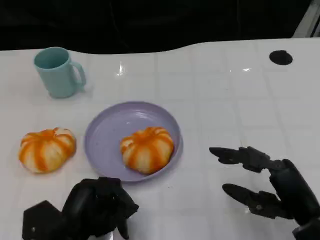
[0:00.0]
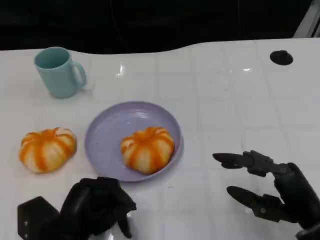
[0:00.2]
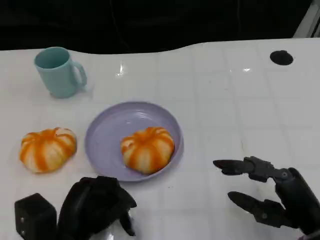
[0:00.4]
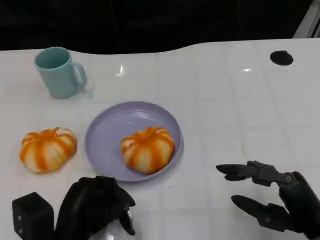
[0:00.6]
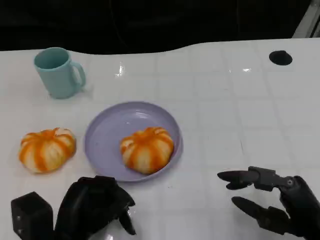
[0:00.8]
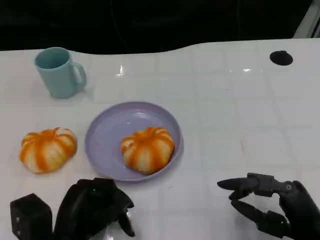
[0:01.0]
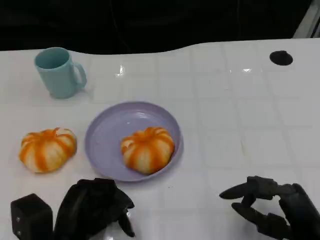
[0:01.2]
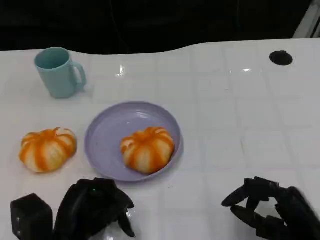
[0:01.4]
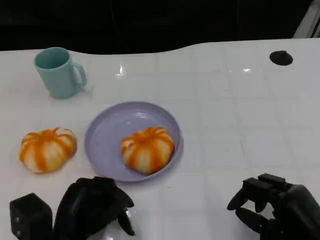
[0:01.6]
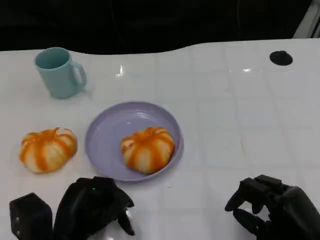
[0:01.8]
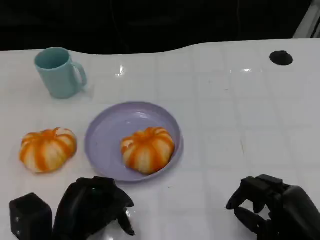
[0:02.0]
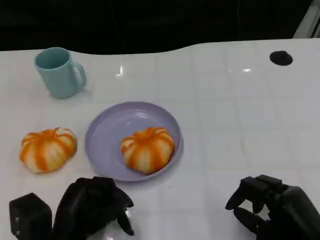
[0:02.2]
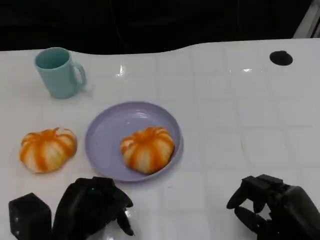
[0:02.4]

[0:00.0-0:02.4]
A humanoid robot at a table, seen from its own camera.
Task of the whole recording: Grasp the bread from the table and place it into the plate.
0:00.0 to 0:01.2: There are only small adjustments of the hands.

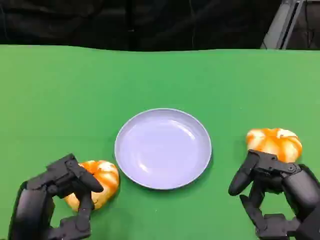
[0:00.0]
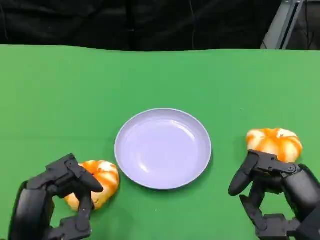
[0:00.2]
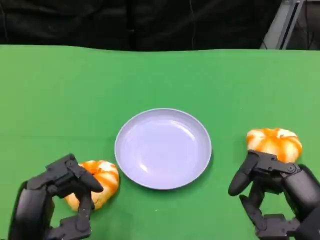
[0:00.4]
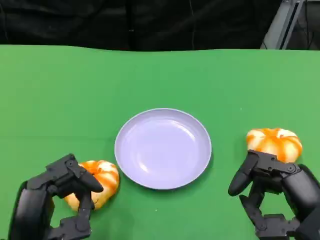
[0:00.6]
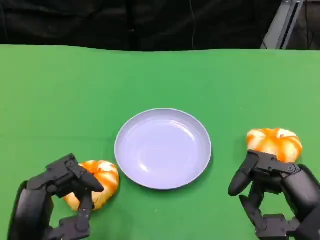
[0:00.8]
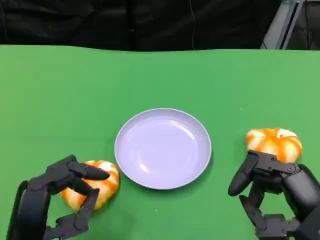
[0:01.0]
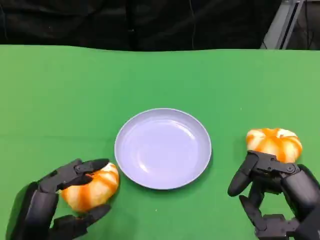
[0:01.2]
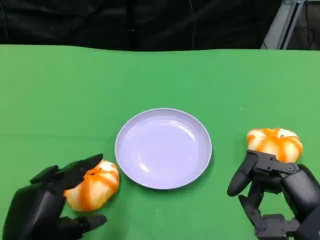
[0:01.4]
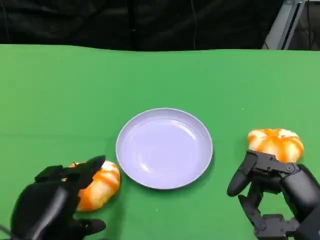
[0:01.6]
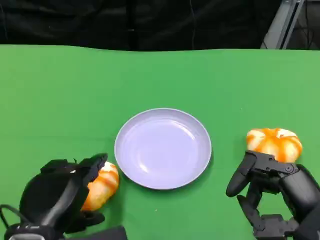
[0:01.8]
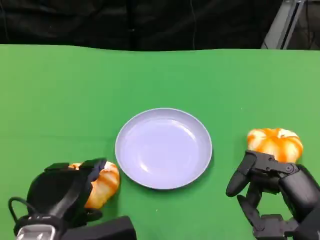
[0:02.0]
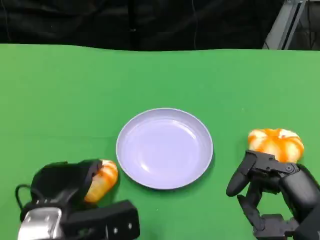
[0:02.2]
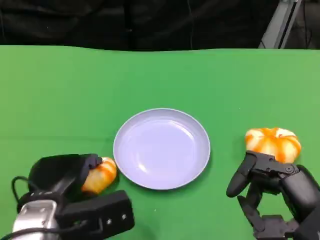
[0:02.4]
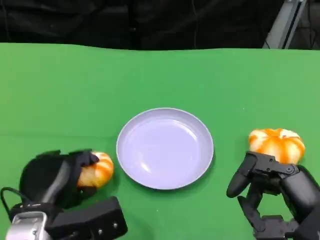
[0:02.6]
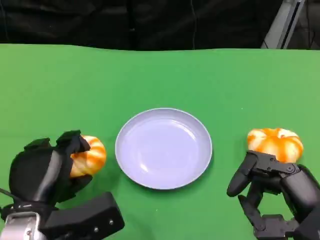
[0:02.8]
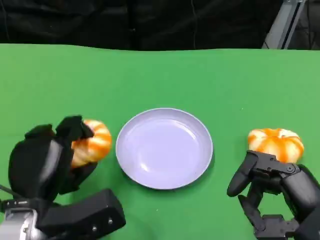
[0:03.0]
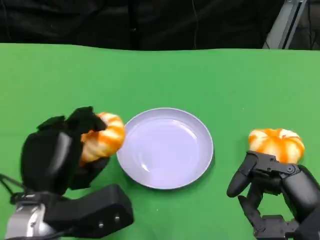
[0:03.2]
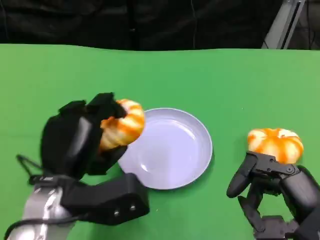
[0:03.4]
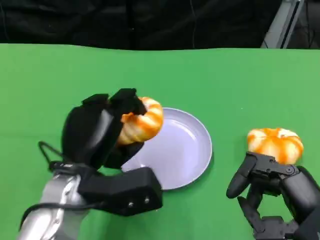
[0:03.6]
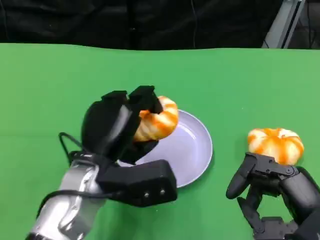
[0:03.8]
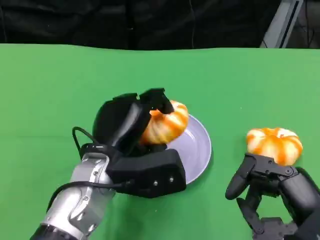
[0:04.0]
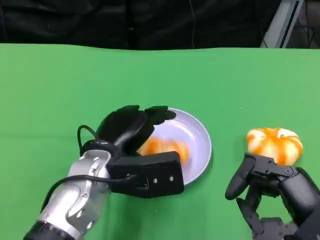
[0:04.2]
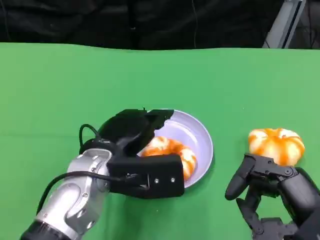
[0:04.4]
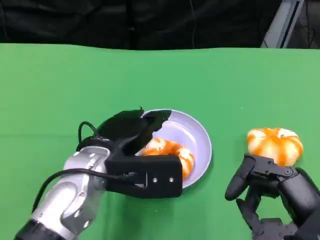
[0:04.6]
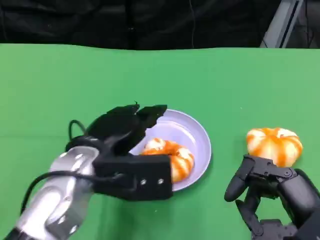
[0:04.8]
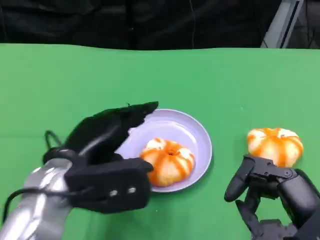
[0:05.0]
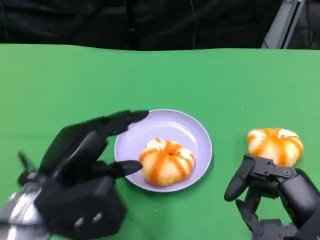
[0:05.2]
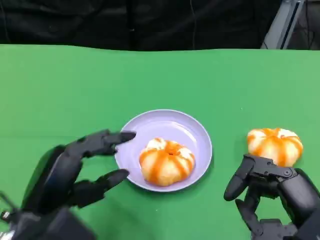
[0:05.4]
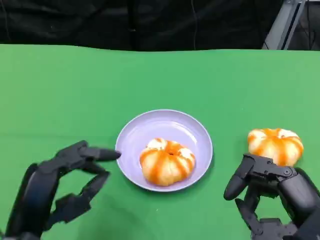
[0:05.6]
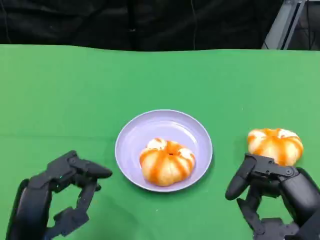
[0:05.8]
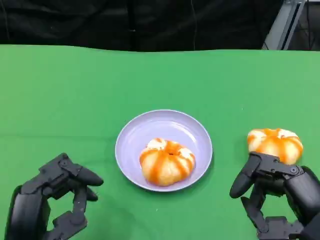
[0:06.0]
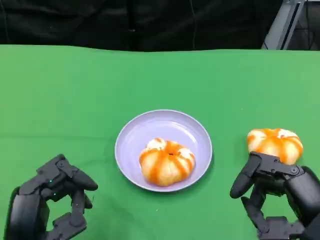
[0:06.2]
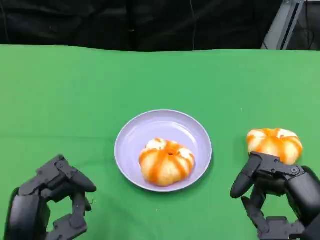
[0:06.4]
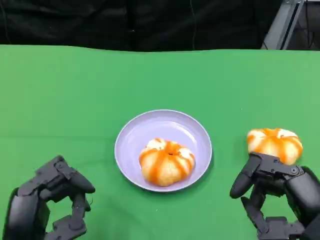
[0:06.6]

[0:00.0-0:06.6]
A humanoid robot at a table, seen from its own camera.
Task of the whole recording: Grasp the bread from the table and place it into the plate.
0:01.6 to 0:03.2: The left hand heads forward, covering approximately 5 cm.
0:05.0 to 0:06.6: The left hand shifts about 10 cm backward and downward.

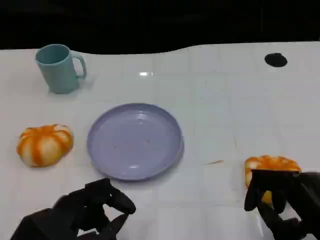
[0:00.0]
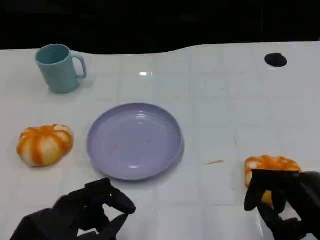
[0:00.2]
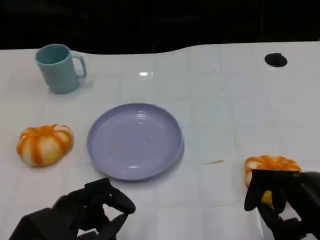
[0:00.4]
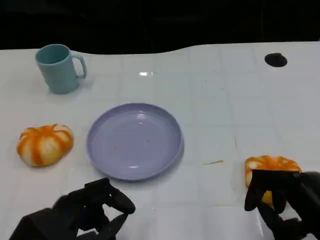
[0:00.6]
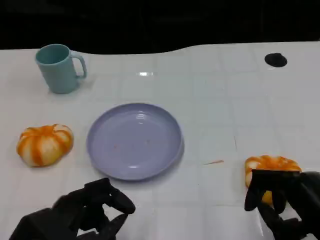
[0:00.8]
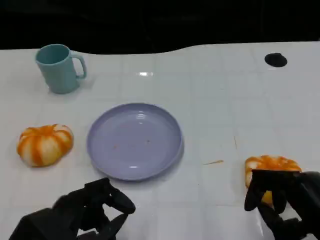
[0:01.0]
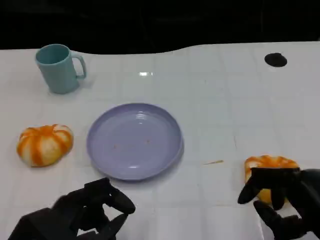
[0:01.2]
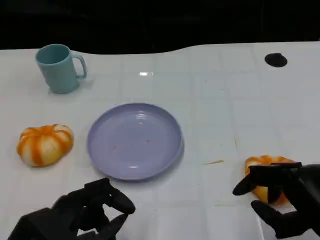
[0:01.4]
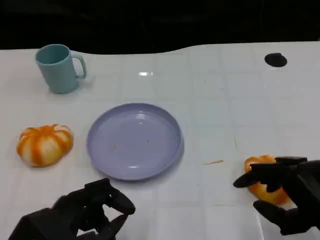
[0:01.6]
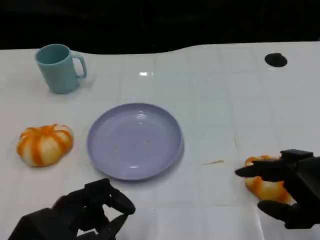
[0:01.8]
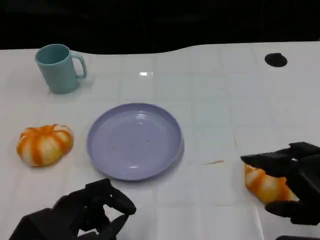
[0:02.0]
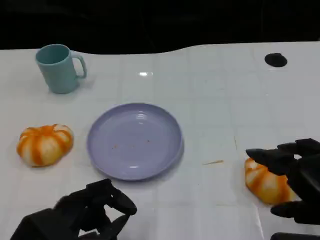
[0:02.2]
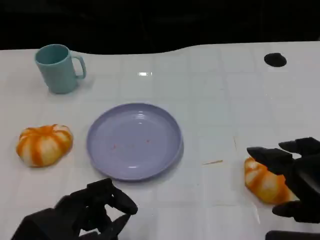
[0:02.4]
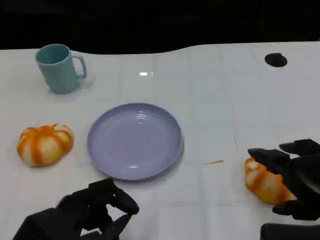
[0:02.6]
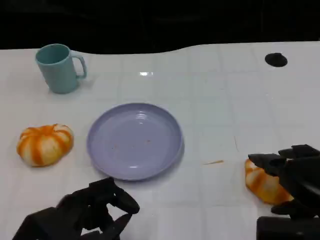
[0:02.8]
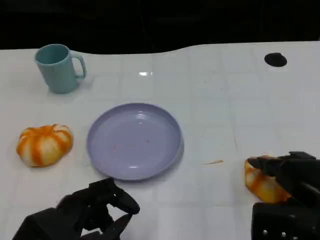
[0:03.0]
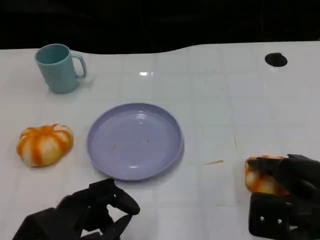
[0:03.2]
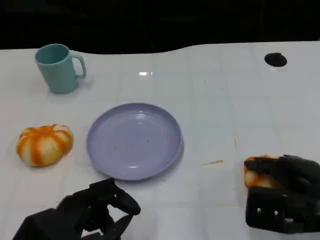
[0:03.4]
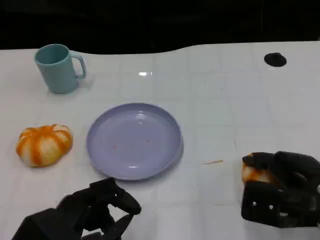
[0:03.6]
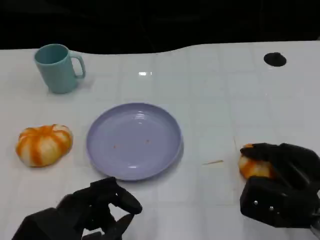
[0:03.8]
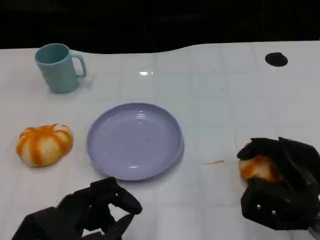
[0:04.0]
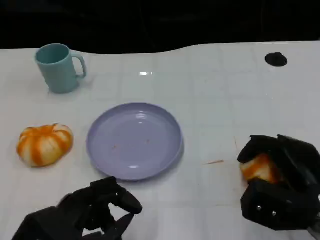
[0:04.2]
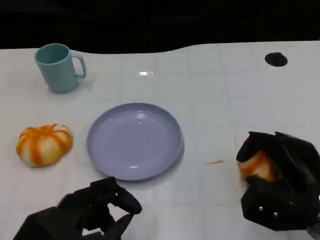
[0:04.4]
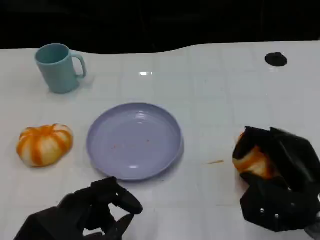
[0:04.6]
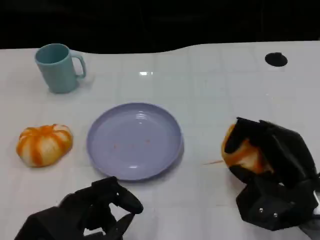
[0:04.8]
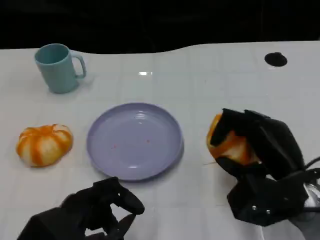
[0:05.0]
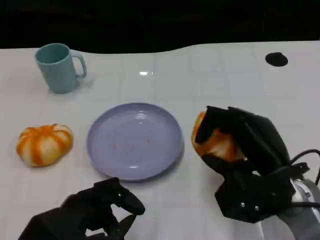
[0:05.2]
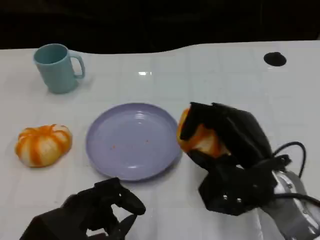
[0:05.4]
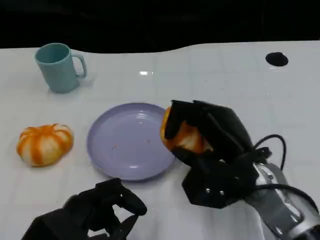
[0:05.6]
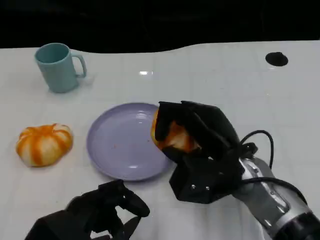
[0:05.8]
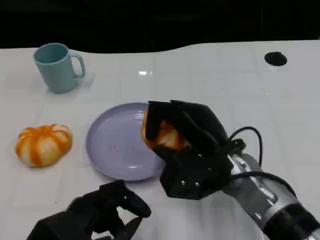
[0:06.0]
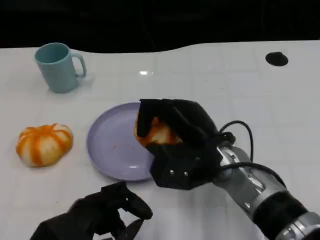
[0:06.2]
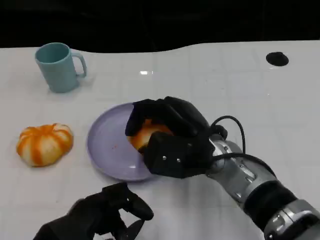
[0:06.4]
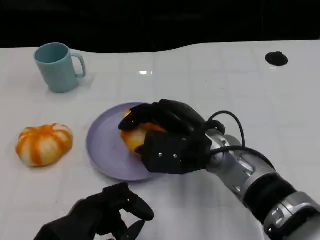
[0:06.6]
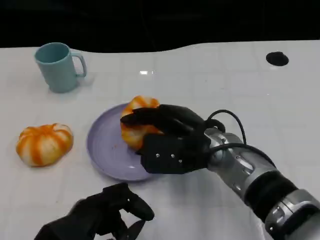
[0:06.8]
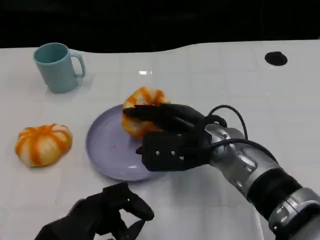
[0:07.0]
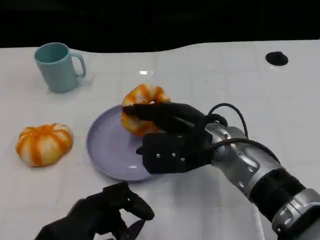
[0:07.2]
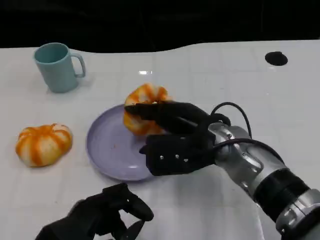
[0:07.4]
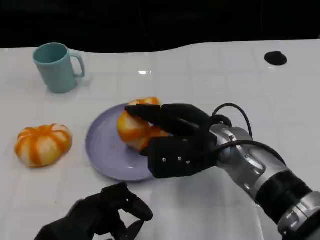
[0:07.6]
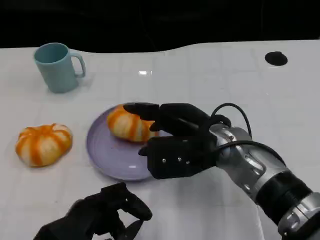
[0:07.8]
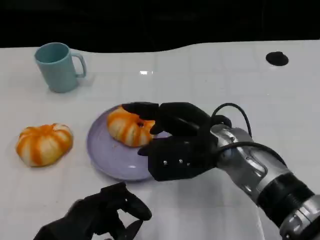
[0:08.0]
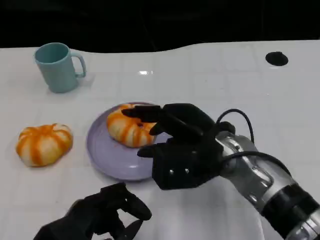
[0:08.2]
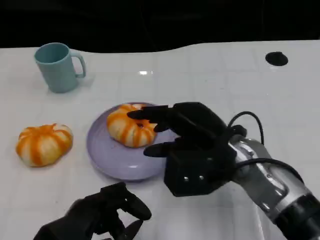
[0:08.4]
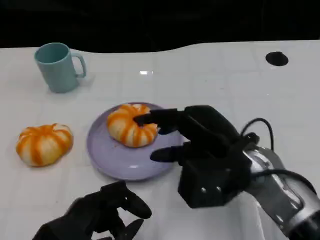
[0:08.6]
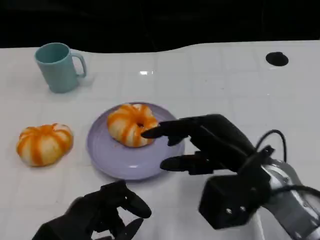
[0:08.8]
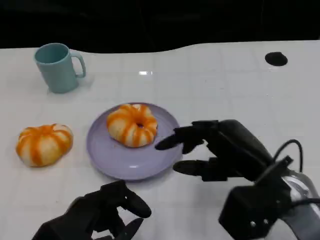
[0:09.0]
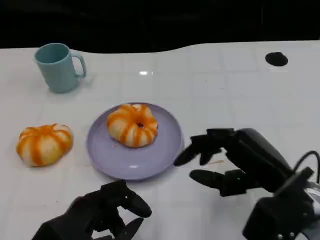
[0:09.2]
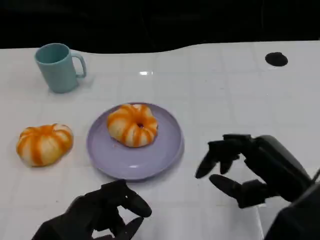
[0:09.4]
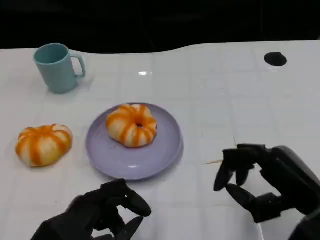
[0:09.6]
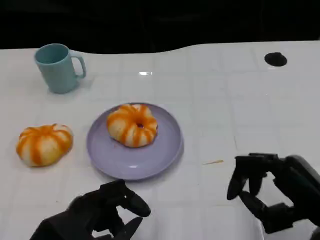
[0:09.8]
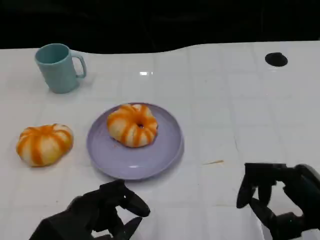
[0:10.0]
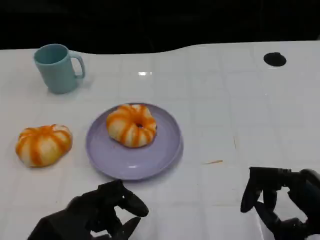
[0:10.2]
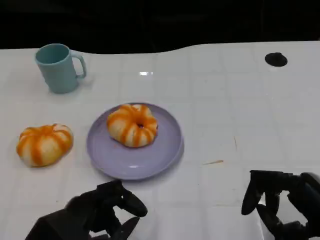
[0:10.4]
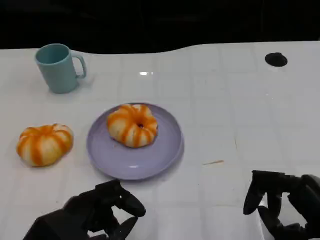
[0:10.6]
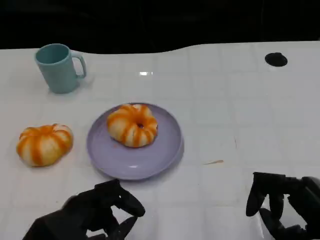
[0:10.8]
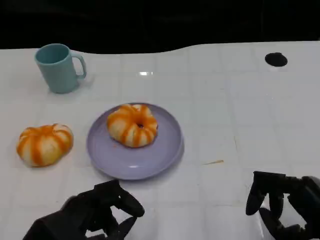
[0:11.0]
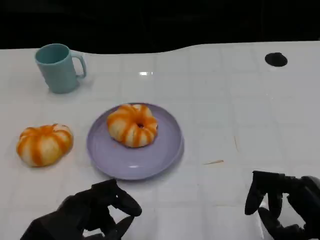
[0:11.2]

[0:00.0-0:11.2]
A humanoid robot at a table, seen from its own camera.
Task of the whole recording: Grasp the bread from the table and place it into the plate.
0:00.0 to 0:01.6: The hands stay close to where they were, moving slightly.
0:01.6 to 0:03.2: The right hand heads forward, covering roughly 5 cm.
0:04.8 to 0:06.4: The right hand is displaced to the left and forward by about 15 cm.
0:06.4 to 0:08.0: The hands move only a little.
0:08.0 to 0:09.6: The right hand heads to the right and backward, covering about 20 cm.
0:09.6 to 0:11.2: There are only small adjustments of the hands.

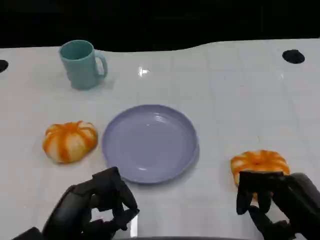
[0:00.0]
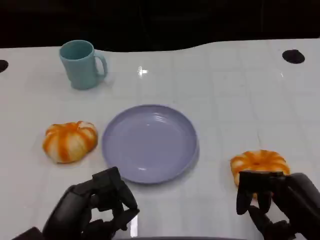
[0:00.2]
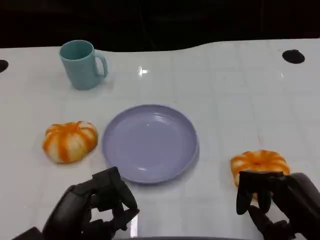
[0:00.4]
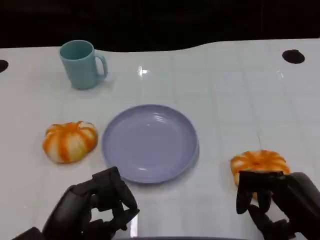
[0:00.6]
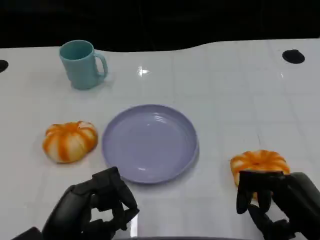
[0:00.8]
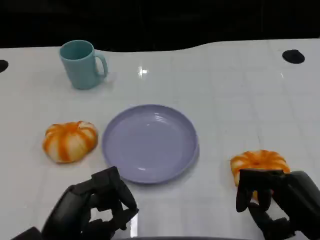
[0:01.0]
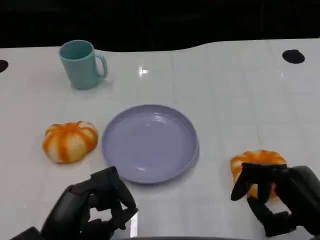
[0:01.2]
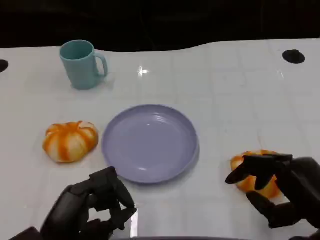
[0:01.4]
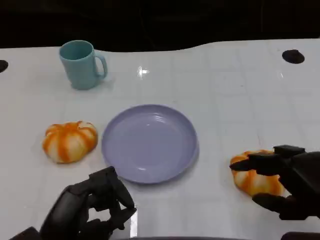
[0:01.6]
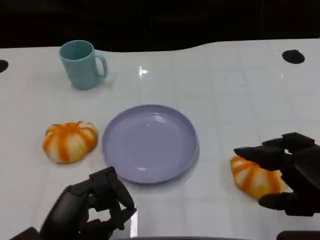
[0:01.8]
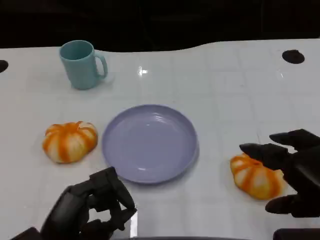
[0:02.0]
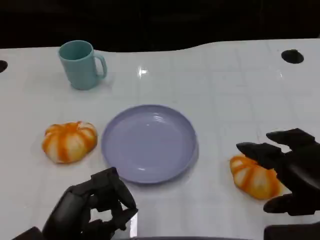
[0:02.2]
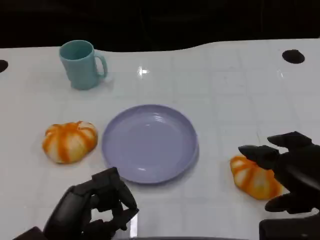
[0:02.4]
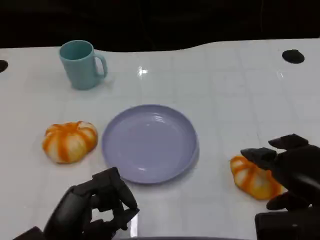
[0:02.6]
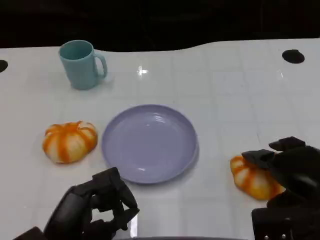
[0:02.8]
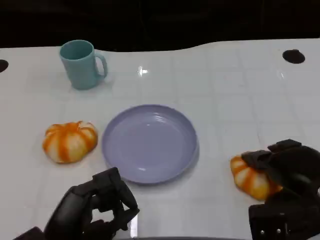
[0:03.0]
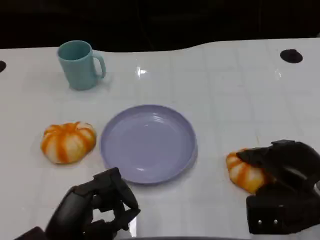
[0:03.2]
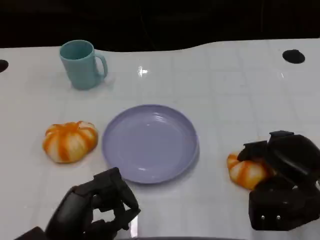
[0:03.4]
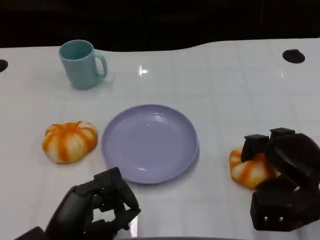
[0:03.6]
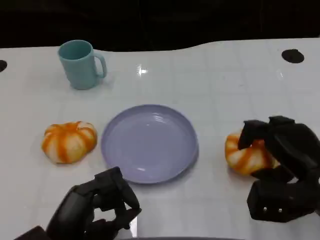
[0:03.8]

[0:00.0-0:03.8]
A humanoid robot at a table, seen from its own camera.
Task of the whole recording: Grasp the bread from the table and place it into the plate.
0:00.0 to 0:01.2: Both hands stay put.
0:02.6 to 0:03.8: The right hand travels forward by some 5 cm.
